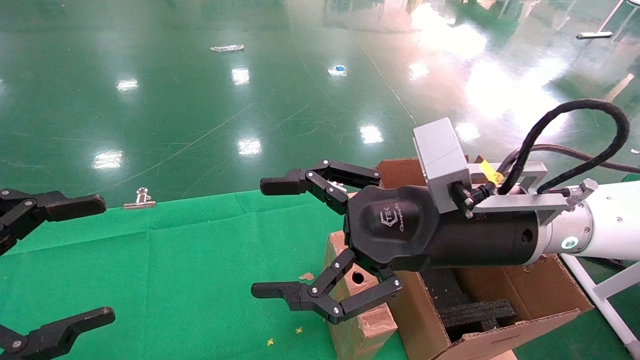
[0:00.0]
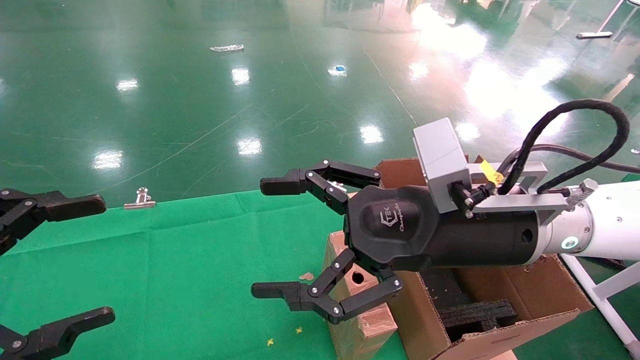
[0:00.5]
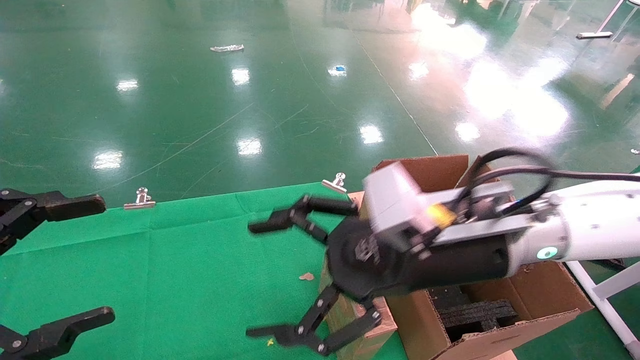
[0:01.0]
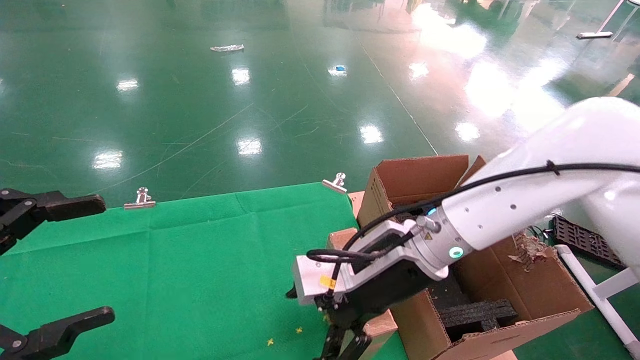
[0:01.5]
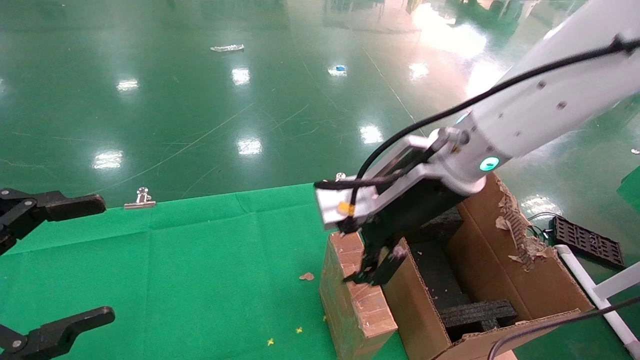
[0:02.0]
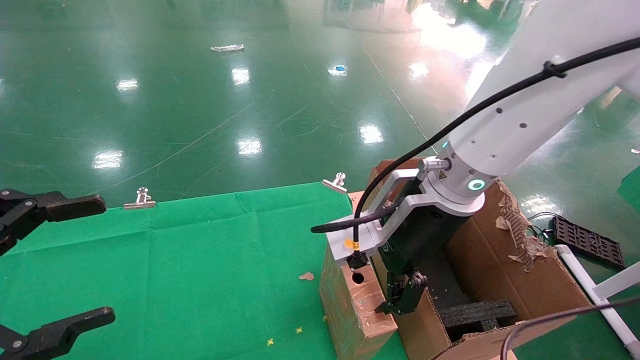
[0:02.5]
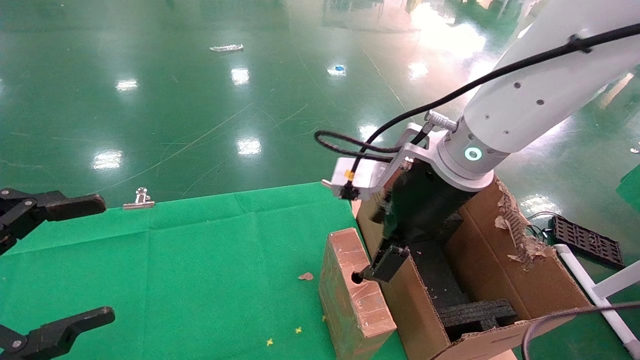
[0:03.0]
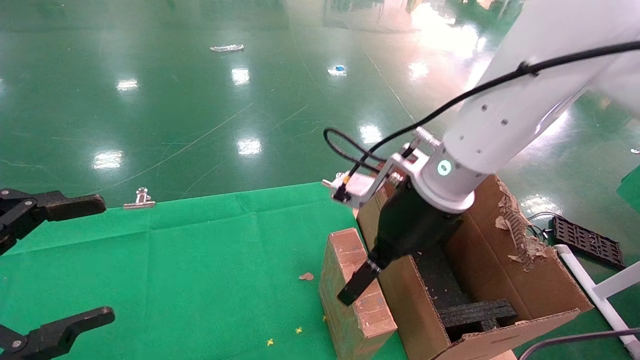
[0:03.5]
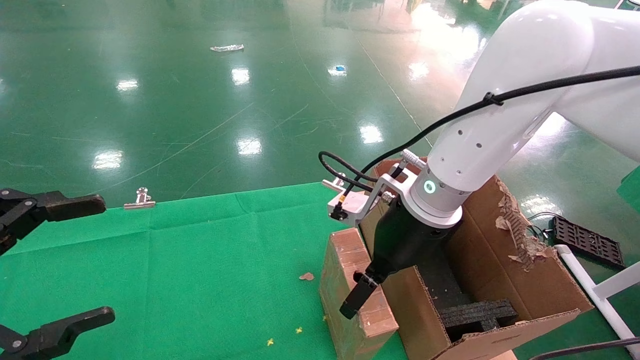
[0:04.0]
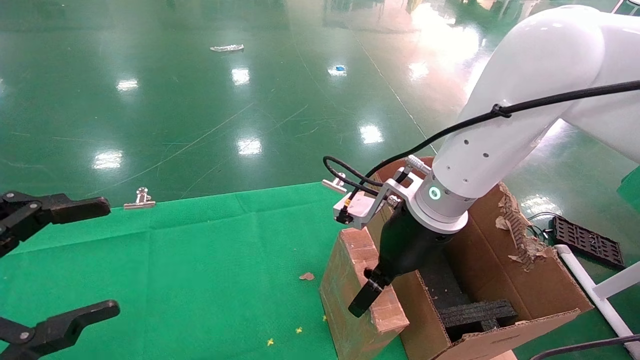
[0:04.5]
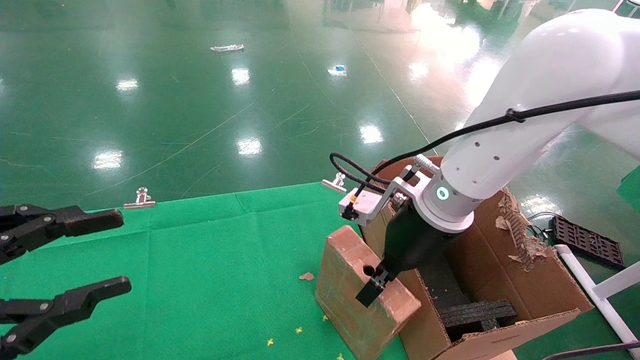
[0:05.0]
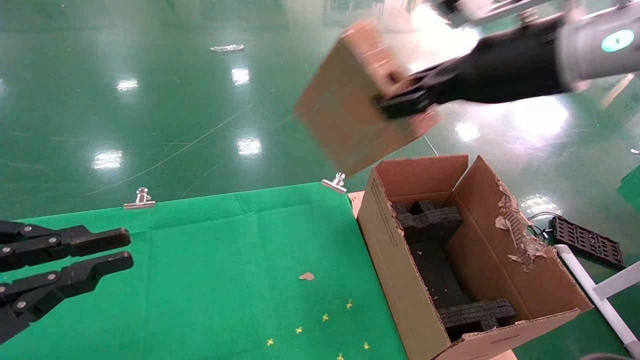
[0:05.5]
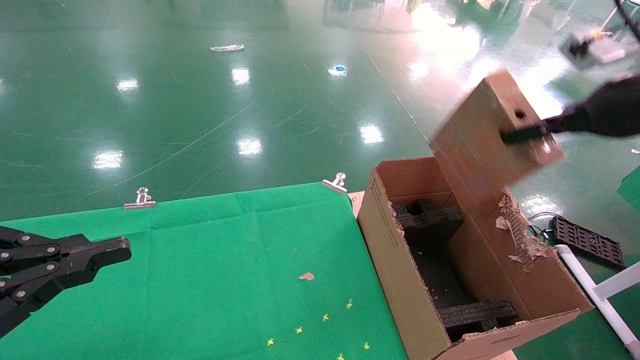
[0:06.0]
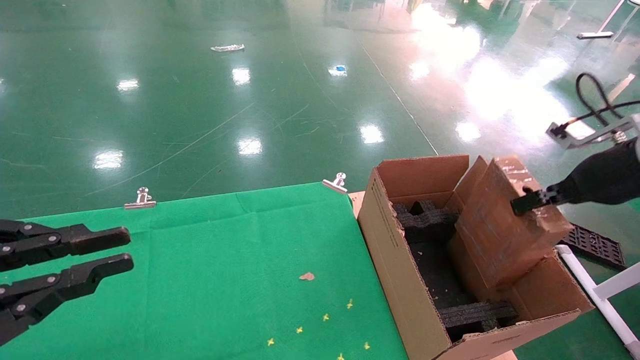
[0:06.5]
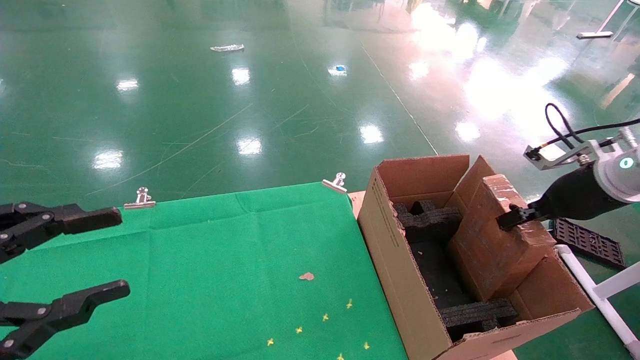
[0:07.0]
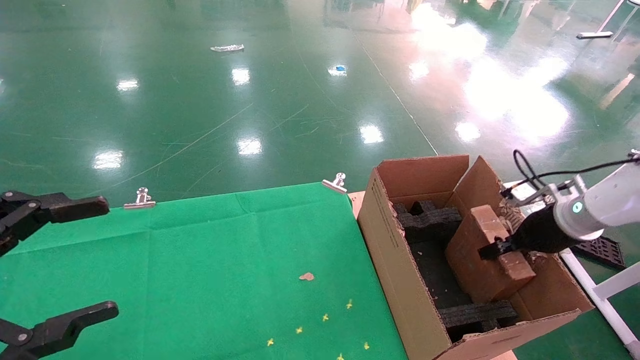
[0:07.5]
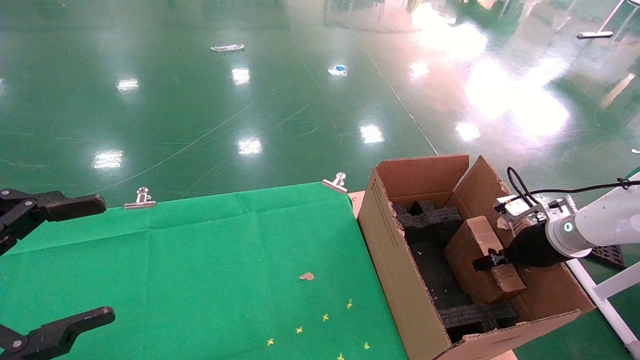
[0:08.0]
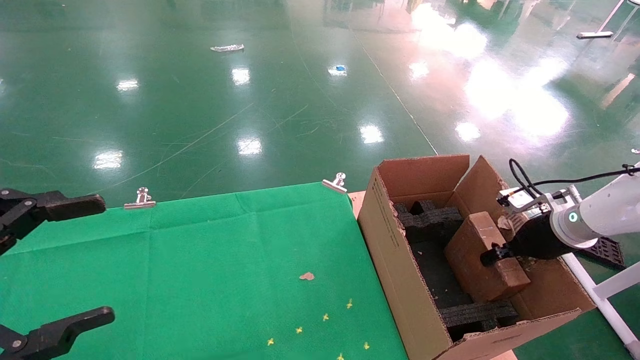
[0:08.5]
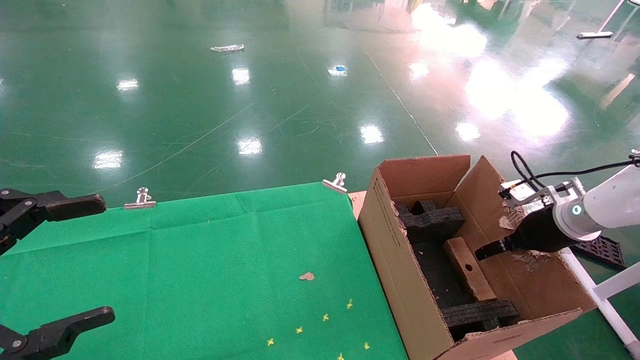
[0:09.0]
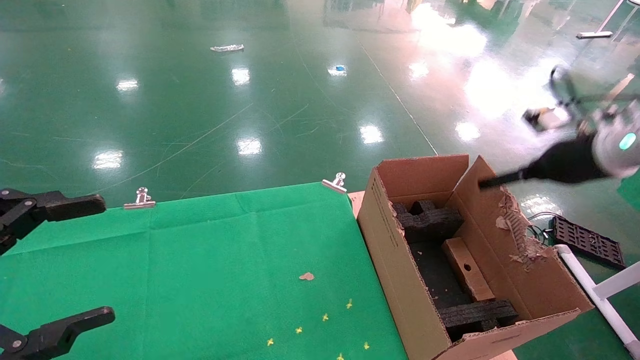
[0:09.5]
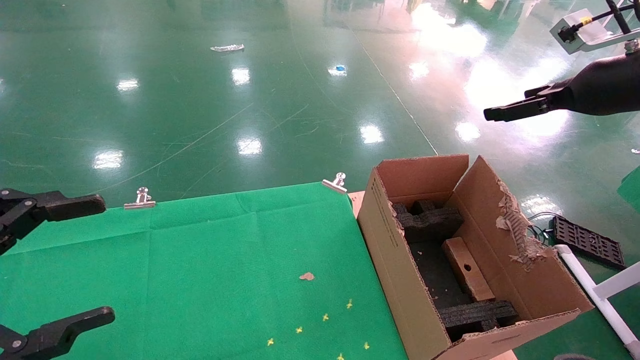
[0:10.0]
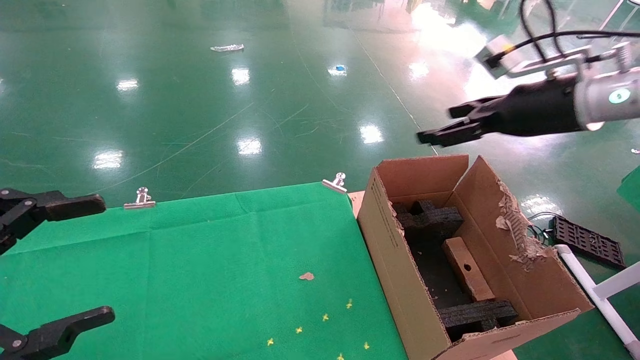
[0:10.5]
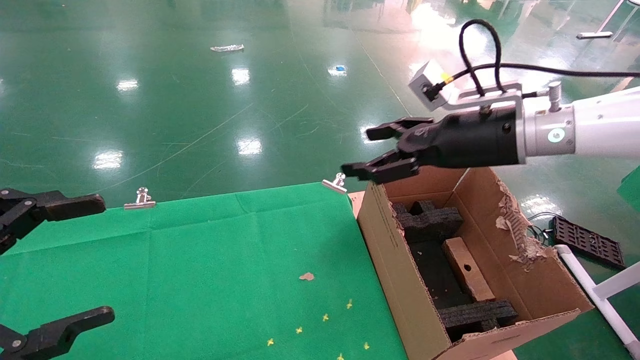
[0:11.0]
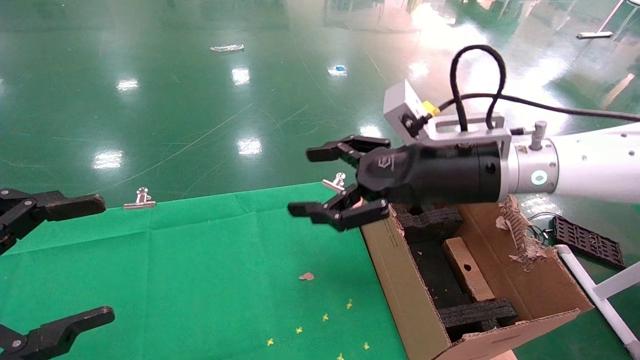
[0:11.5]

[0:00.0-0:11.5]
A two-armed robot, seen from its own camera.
Task of the whole recording: using a robotic arm to pick up a cardboard box and palace it the carton.
Step, 0:01.0 to 0:04.5: Pick up the mouse and the power cord paper box.
Step, 0:05.0 to 0:09.0: Place the mouse and the power cord paper box into the container.
0:00.0 to 0:02.0: The right gripper travels forward by approximately 5 cm.
0:02.0 to 0:04.0: The right gripper shifts by about 5 cm.
0:04.0 to 0:06.0: The right gripper travels to the right and upward by approximately 30 cm, and closes. The left gripper closes.
0:06.0 to 0:07.5: The left gripper opens. The right gripper is displaced downward and forward by roughly 20 cm.
0:07.5 to 0:09.5: The right gripper shifts about 15 cm upward, and opens its fingers.
0:09.5 to 0:11.5: The right gripper shifts approximately 25 cm to the left.

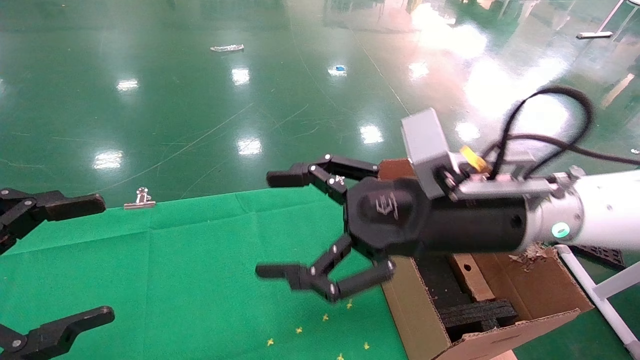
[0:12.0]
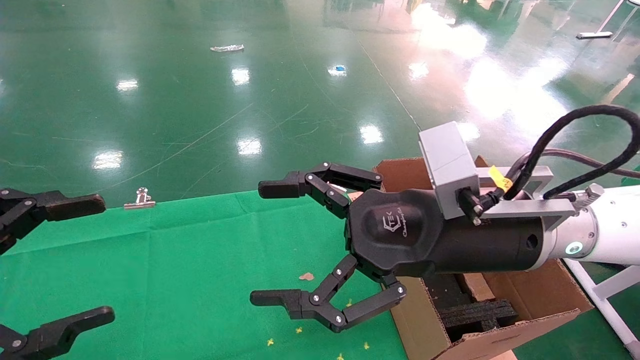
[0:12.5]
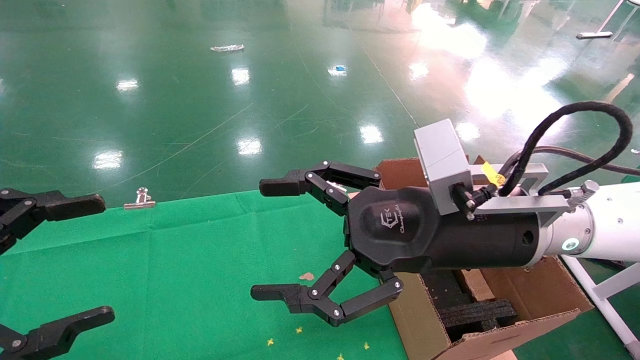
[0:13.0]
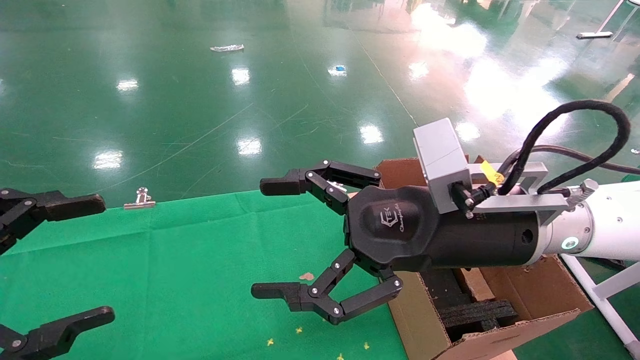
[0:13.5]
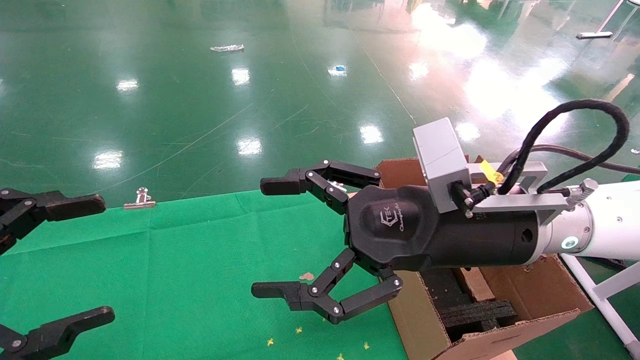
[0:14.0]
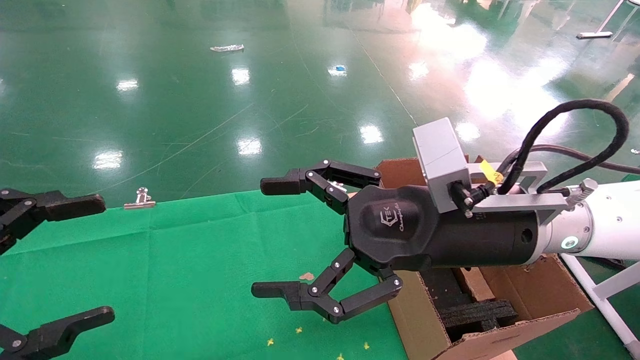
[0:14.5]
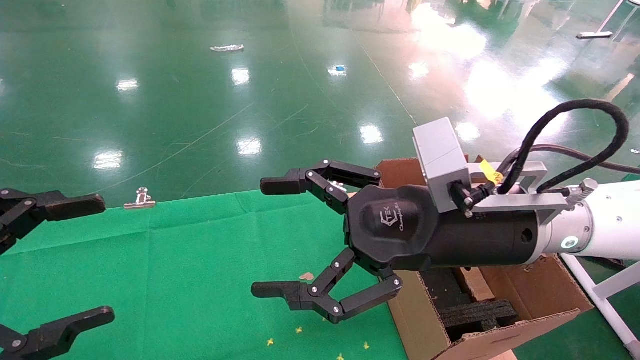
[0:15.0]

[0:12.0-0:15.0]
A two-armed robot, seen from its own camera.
Task of the whole recording: using a robotic arm to pick up a cardboard box and palace it the carton.
0:12.0 to 0:13.5: There are only small adjustments of the grippers.
0:13.5 to 0:15.0: Both grippers stay put.
